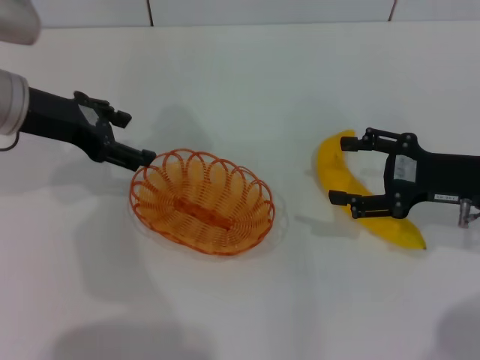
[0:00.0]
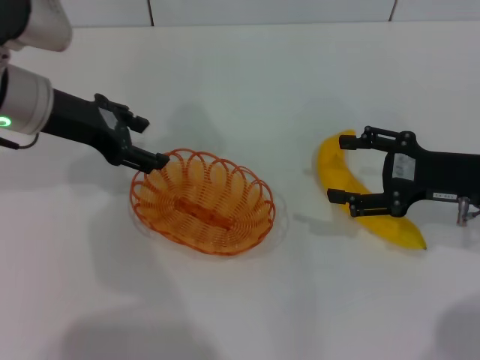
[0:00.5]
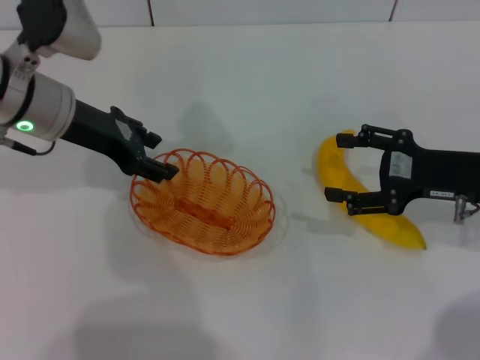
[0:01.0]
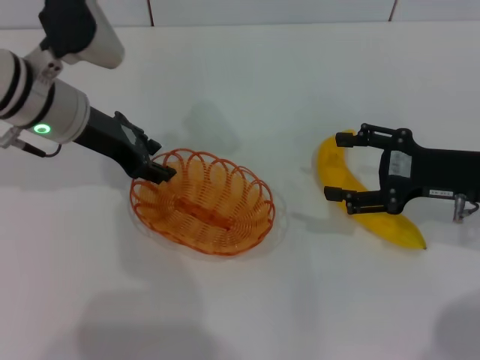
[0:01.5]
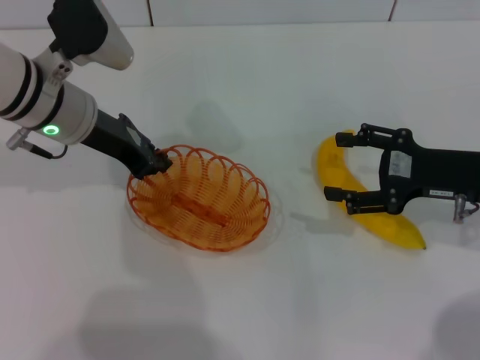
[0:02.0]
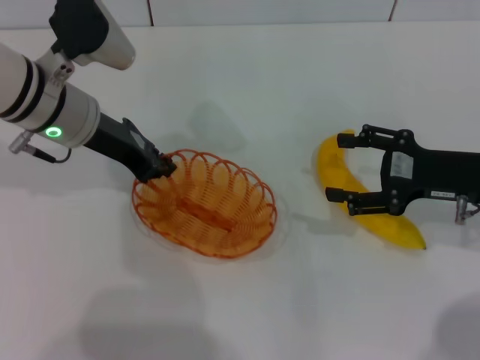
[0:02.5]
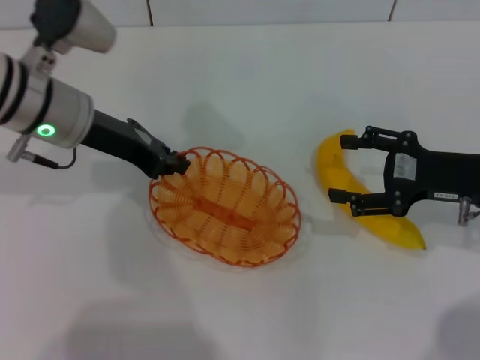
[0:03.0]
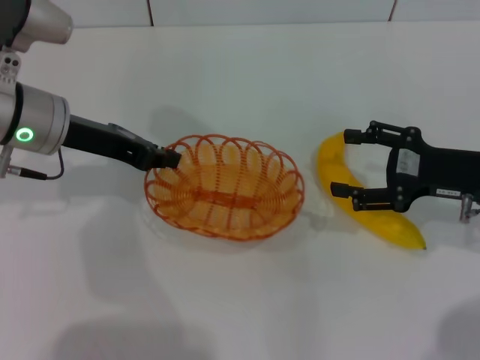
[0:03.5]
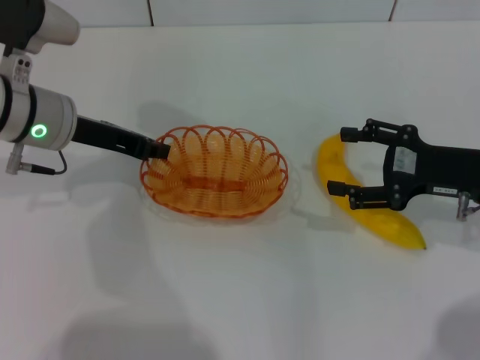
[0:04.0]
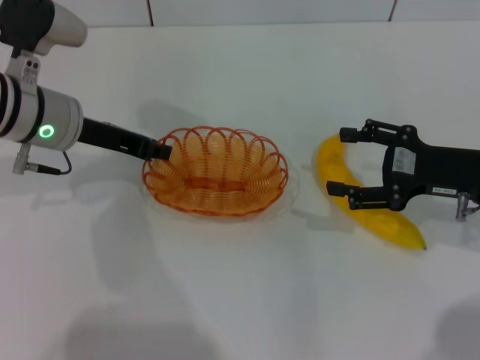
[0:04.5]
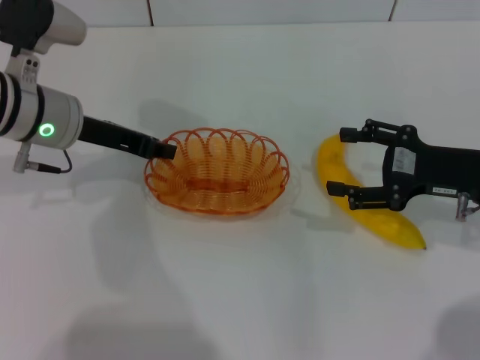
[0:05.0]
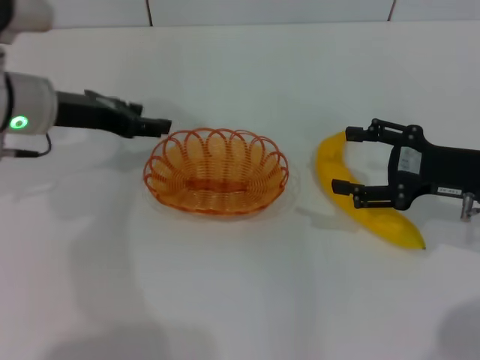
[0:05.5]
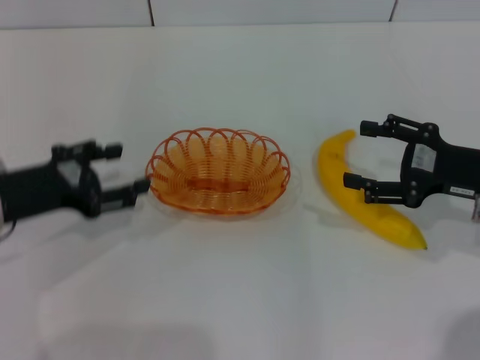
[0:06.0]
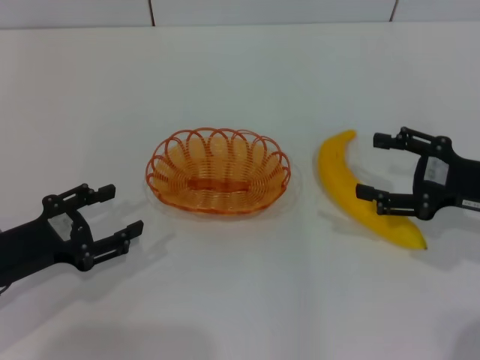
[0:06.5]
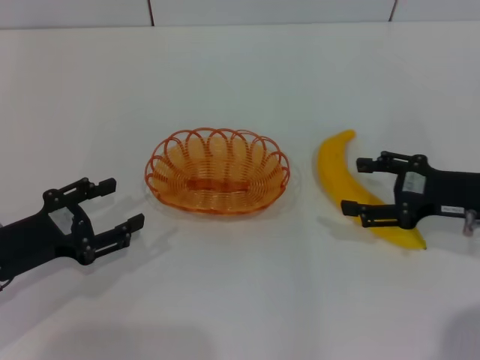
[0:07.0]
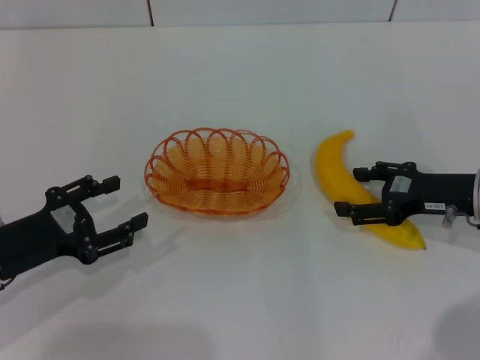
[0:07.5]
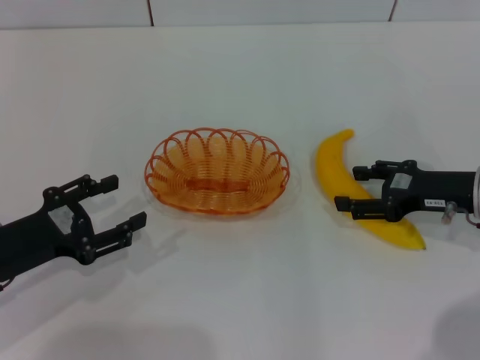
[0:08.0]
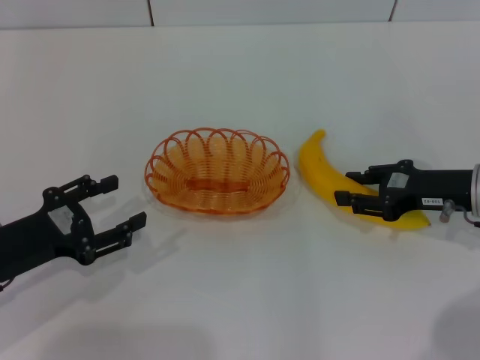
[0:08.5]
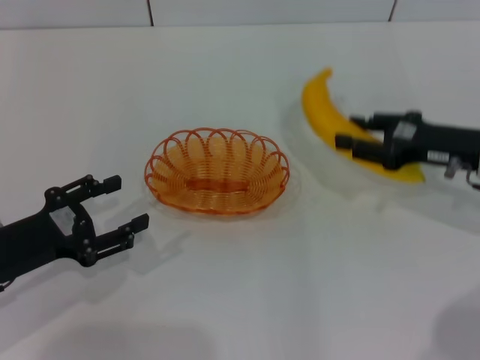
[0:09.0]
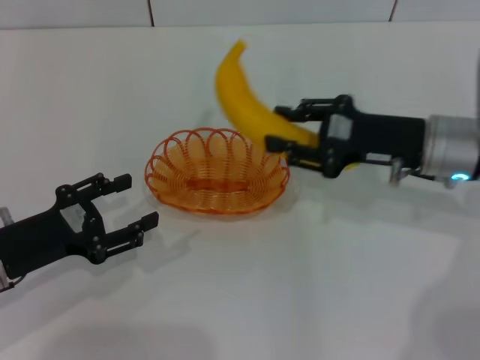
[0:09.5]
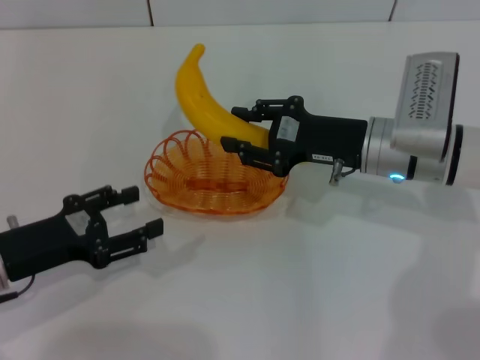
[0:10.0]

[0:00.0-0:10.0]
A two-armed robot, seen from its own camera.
Step, 0:00.0 to 0:03.0: Pick up the basket with the left gripper.
Step, 0:03.5 to 0:05.5: Place the basket in the center of view with the left gripper.
Step, 0:06.0 to 0:08.5: Pick up the banana with the right gripper.
0:00.0 to 0:02.0: The left gripper travels to the right by approximately 5 cm, and closes its fingers.
0:04.0 to 0:06.0: The left gripper heads backward and to the left, covering approximately 10 cm, and opens its fingers.
0:06.0 to 0:08.0: The left gripper shifts by about 5 cm.
0:08.0 to 0:10.0: The right gripper moves to the left, some 10 cm, and closes up.

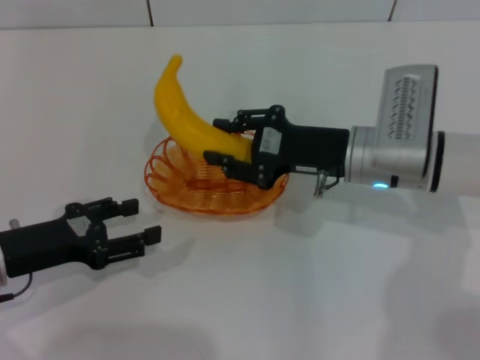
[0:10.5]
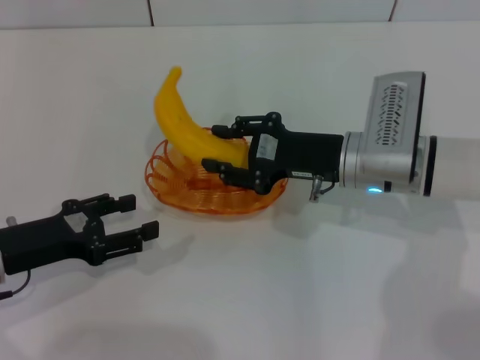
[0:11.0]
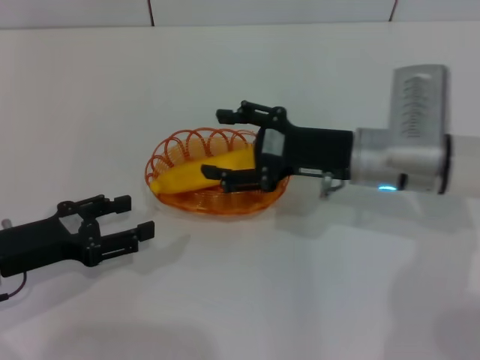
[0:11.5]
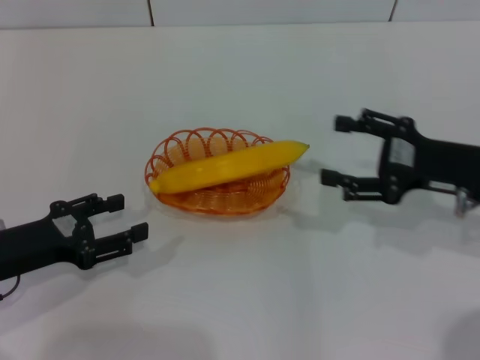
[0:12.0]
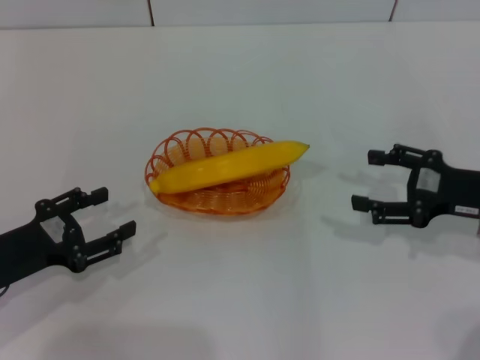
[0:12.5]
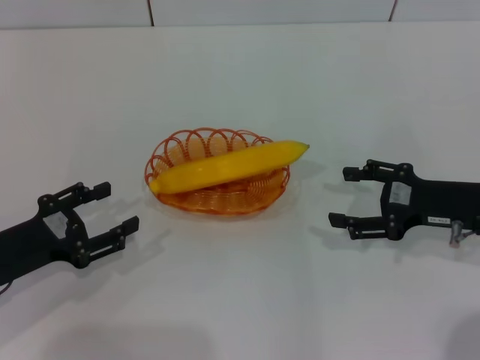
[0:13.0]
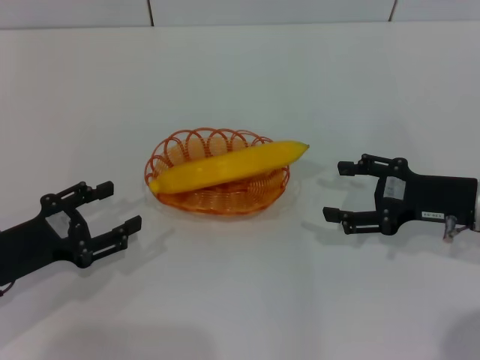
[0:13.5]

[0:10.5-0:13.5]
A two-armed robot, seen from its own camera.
0:10.5 to 0:12.0: The right gripper travels to the right by roughly 10 cm, and opens its fingers.
0:12.0 to 0:13.5: The grippers make only small movements.
